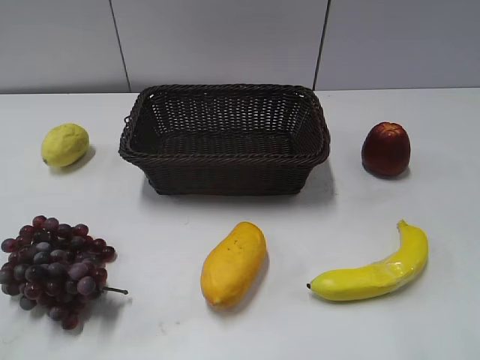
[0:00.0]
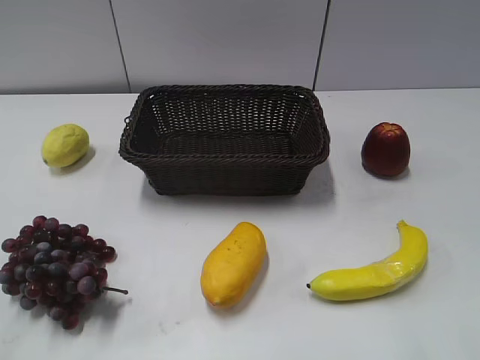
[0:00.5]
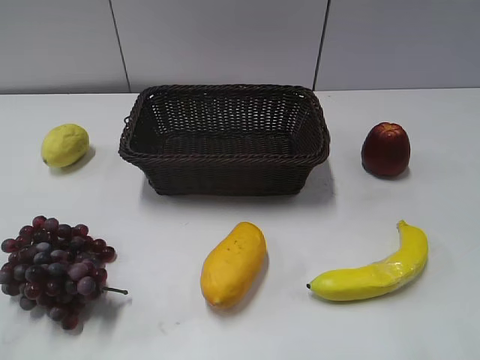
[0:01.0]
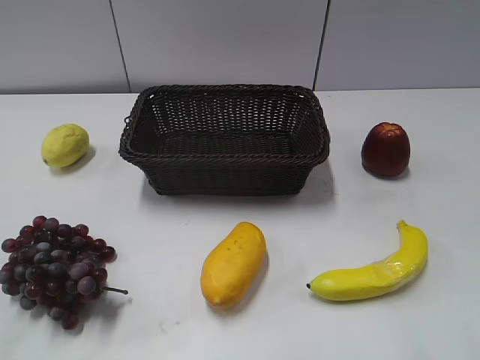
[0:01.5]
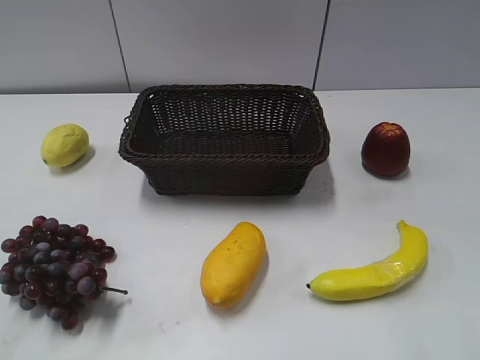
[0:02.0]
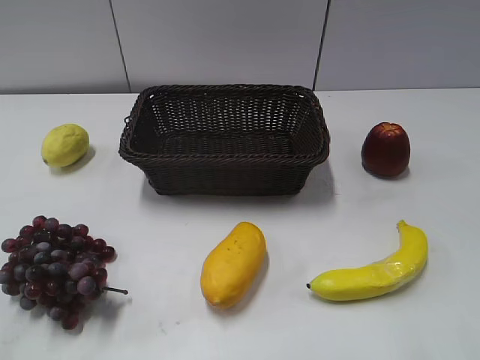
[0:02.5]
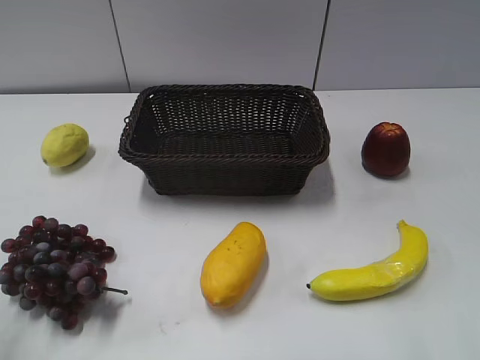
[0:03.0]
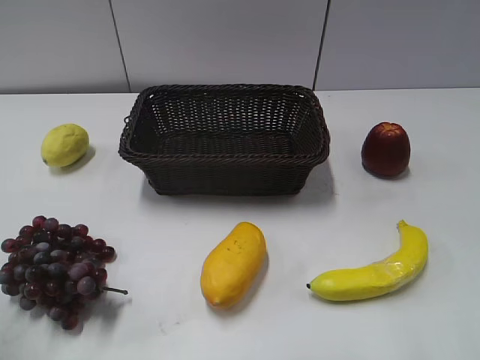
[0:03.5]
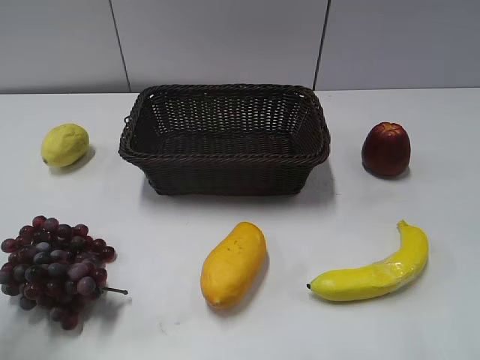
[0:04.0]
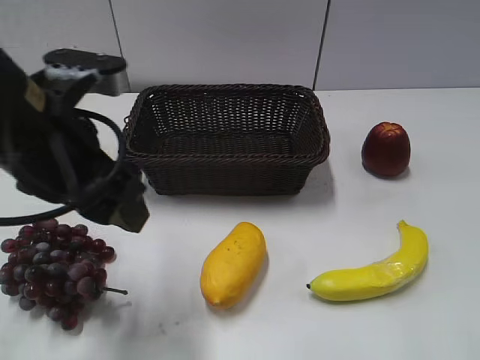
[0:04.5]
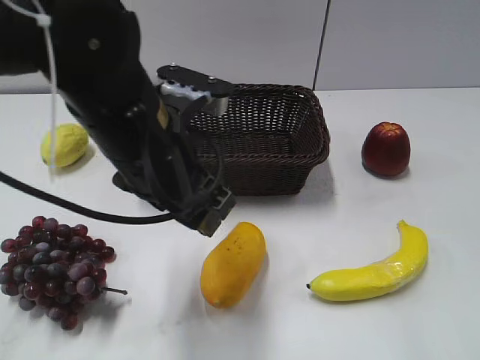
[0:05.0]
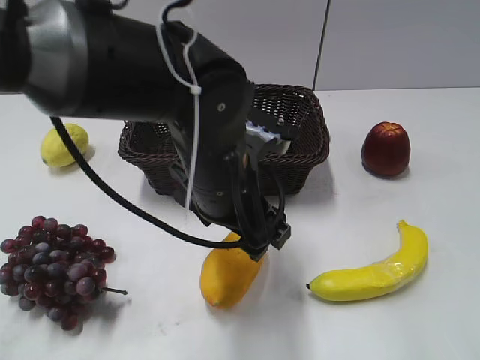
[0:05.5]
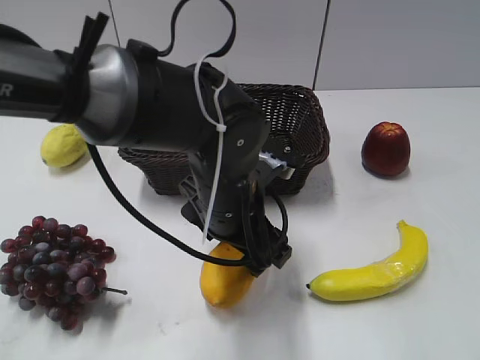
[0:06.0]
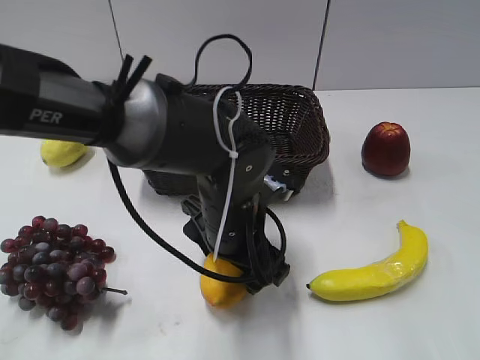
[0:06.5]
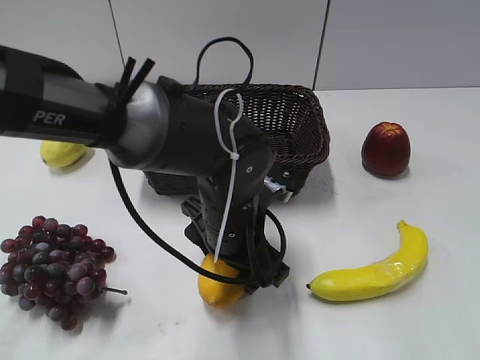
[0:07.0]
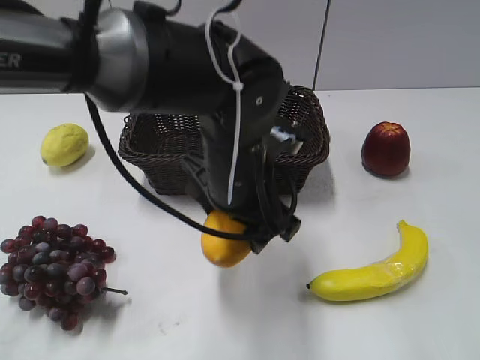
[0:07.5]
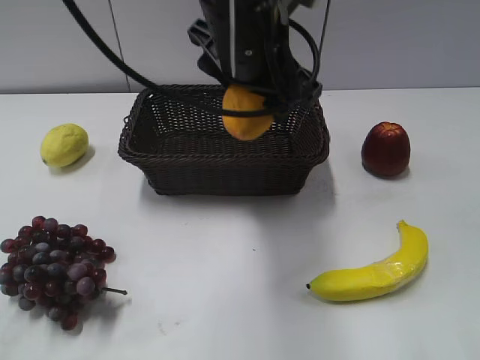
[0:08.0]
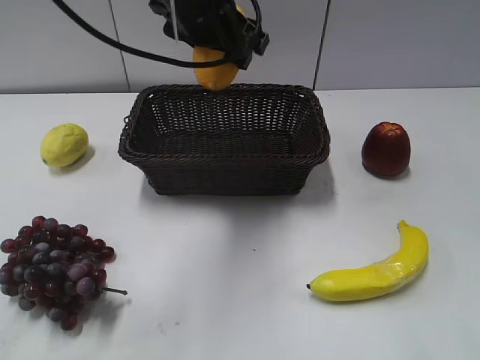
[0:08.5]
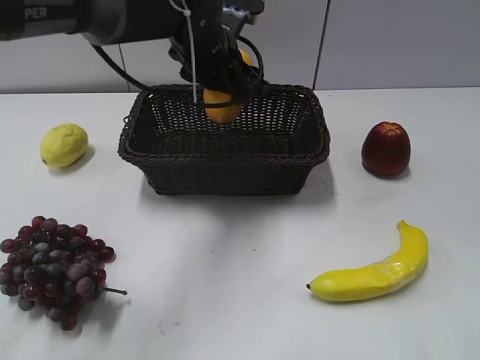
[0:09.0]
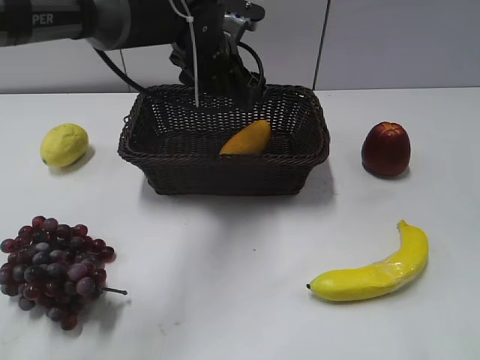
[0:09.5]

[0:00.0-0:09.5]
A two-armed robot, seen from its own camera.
Step, 0:04.5 to 0:06.5: Grasp the mango with left gripper.
Step, 0:07.0 to 0:09.0: Place the mango in the basket with left gripper.
0:02.0 to 0:04.0: The left gripper travels forward by some 15 cm.
0:04.0 to 0:05.5: The left gripper is displaced to the right by roughly 25 cm, and opens.
0:05.5 to 0:07.5: The left gripper closes its fingers.
0:07.5 to 0:09.5: The left gripper shifts roughly 15 cm forward, and opens up.

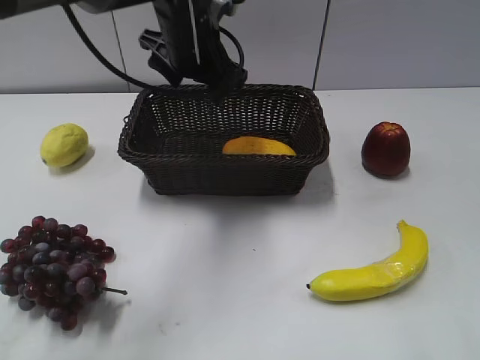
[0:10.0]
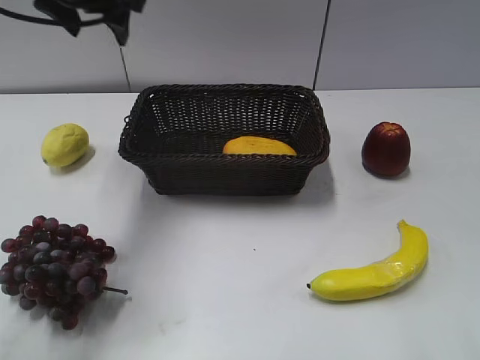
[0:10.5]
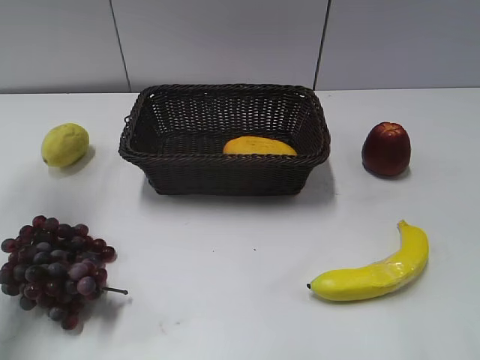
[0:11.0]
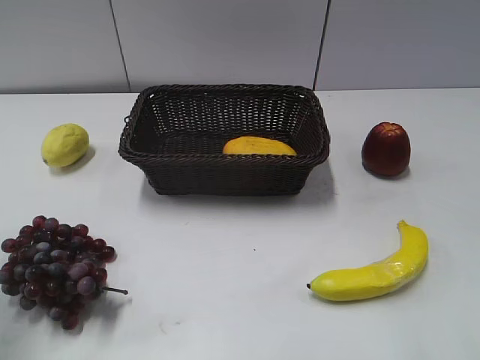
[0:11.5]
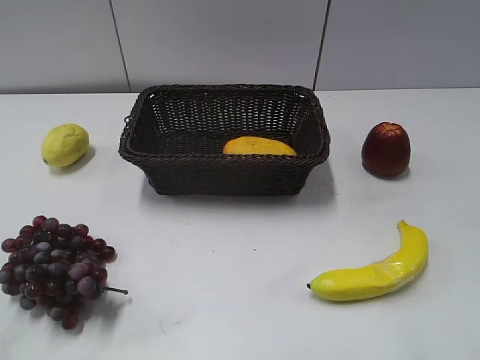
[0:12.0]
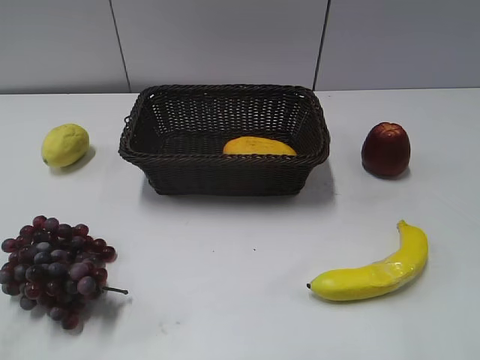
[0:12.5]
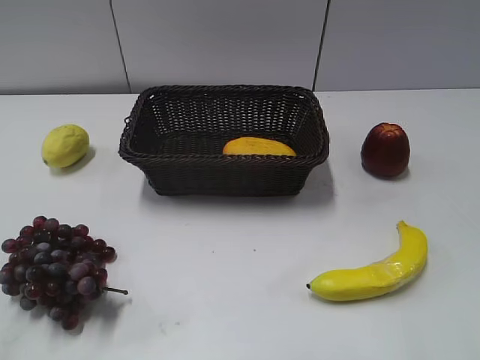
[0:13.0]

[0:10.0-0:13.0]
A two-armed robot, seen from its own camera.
0:10.0 to 0:11.5: The left gripper heads to the left and backward, covering about 35 cm, and closes its fingers.
0:11.5 to 0:13.0: The left gripper moves backward, roughly 20 cm.
